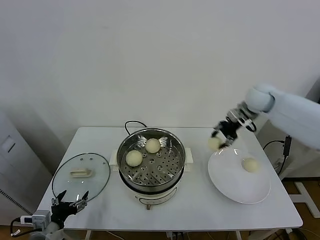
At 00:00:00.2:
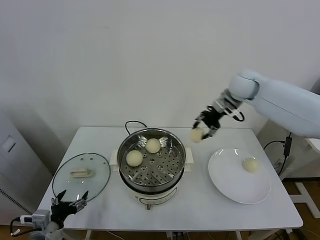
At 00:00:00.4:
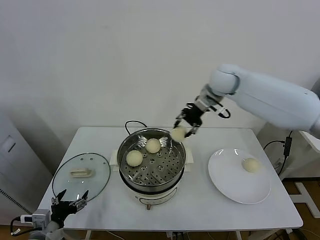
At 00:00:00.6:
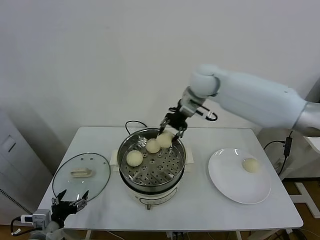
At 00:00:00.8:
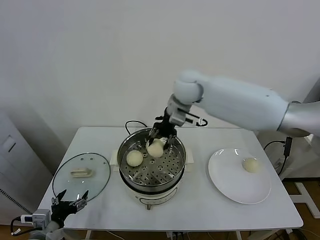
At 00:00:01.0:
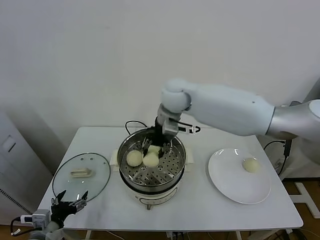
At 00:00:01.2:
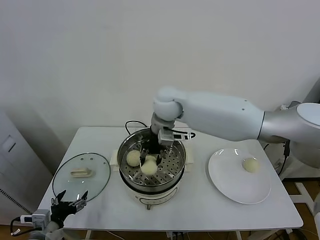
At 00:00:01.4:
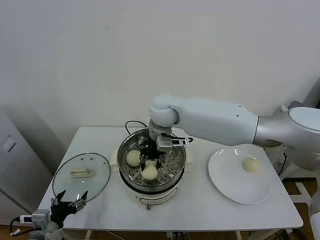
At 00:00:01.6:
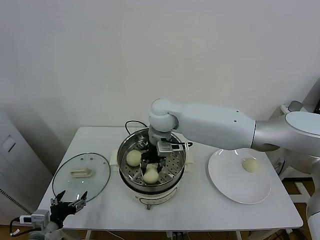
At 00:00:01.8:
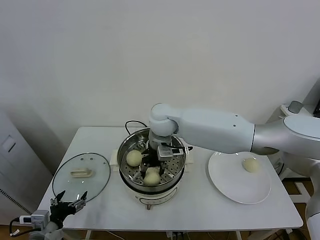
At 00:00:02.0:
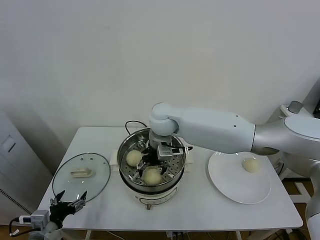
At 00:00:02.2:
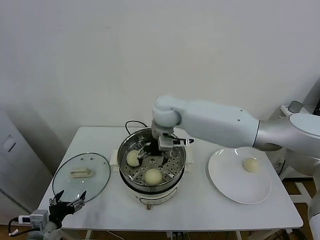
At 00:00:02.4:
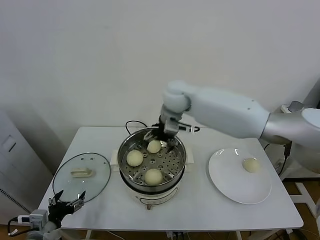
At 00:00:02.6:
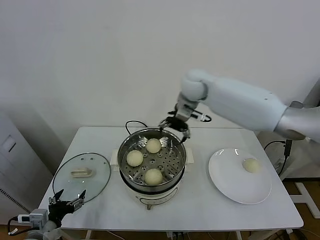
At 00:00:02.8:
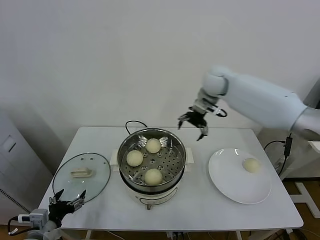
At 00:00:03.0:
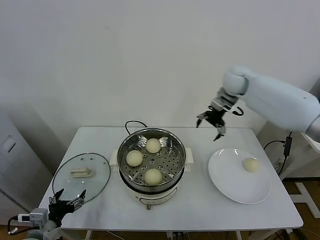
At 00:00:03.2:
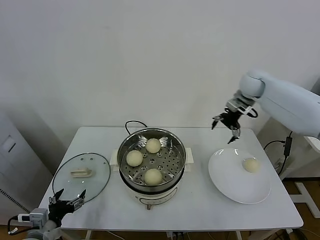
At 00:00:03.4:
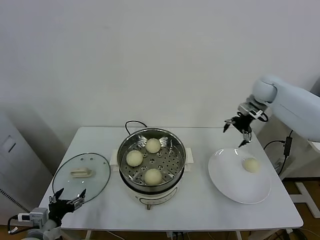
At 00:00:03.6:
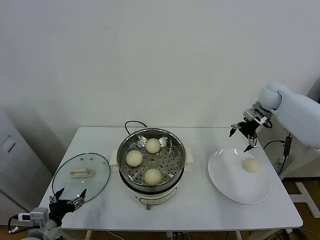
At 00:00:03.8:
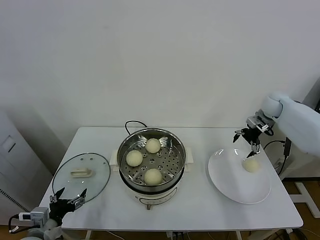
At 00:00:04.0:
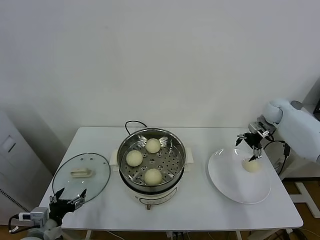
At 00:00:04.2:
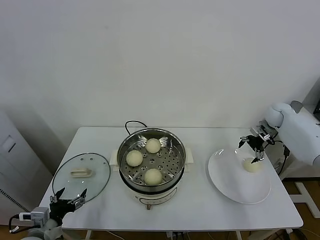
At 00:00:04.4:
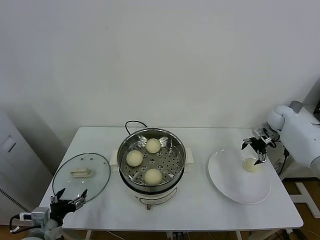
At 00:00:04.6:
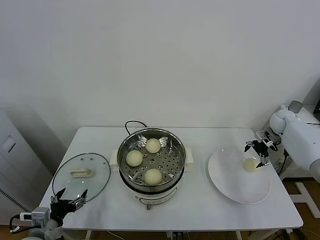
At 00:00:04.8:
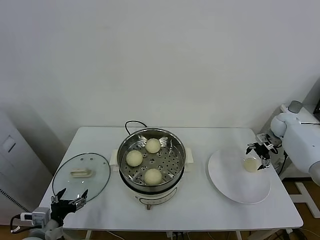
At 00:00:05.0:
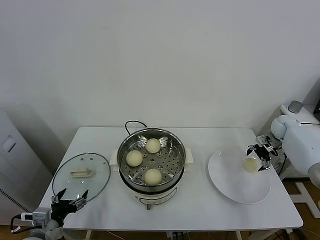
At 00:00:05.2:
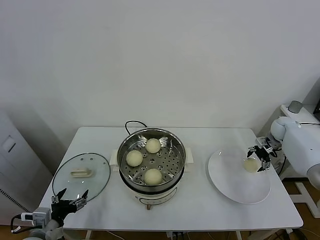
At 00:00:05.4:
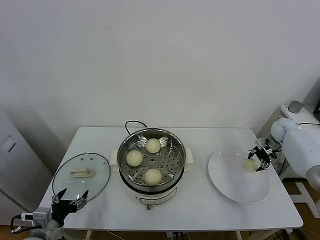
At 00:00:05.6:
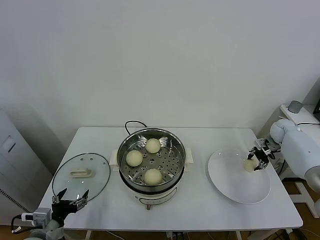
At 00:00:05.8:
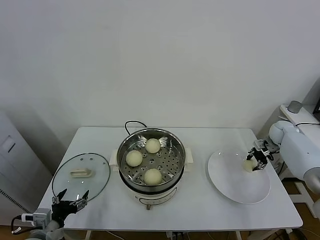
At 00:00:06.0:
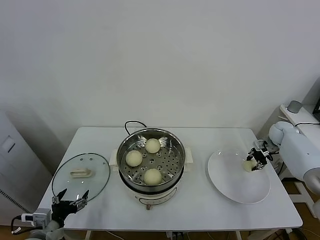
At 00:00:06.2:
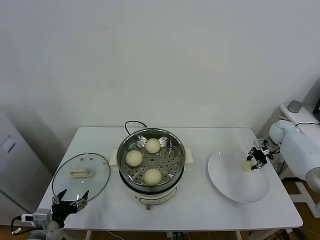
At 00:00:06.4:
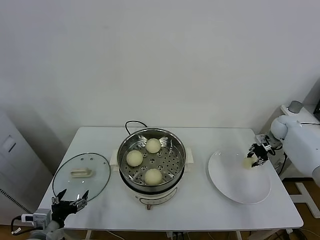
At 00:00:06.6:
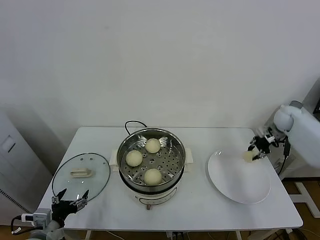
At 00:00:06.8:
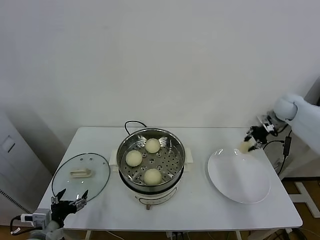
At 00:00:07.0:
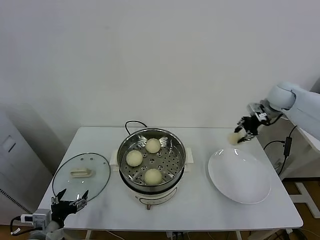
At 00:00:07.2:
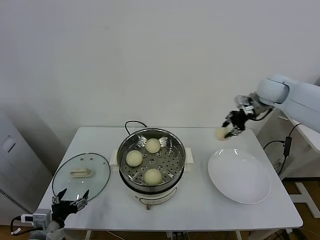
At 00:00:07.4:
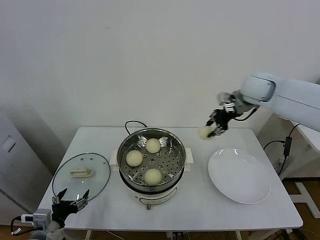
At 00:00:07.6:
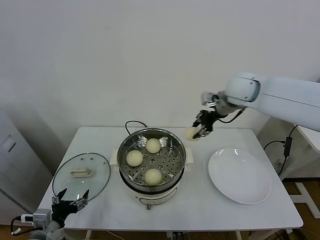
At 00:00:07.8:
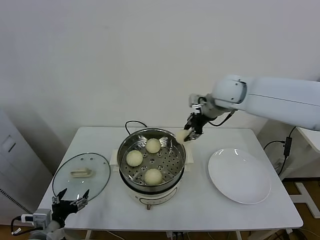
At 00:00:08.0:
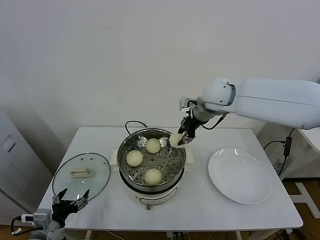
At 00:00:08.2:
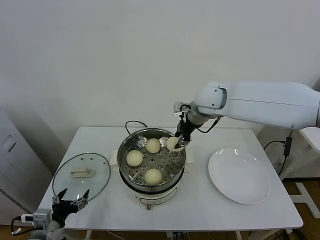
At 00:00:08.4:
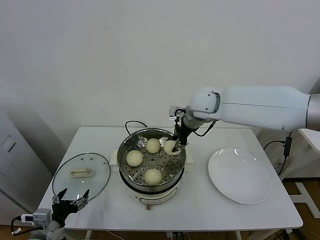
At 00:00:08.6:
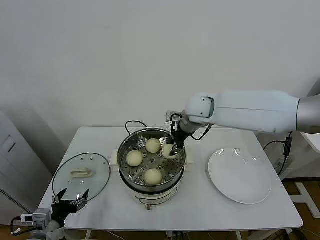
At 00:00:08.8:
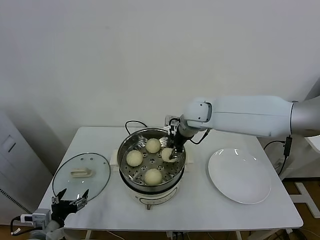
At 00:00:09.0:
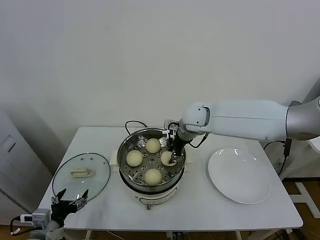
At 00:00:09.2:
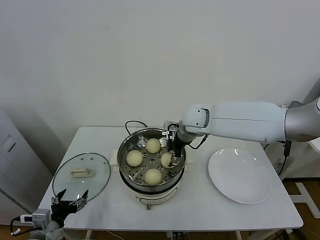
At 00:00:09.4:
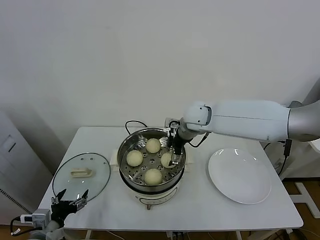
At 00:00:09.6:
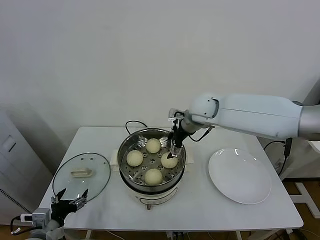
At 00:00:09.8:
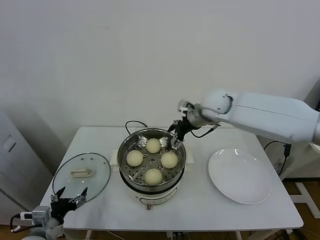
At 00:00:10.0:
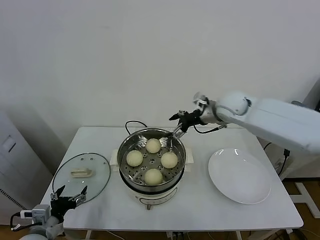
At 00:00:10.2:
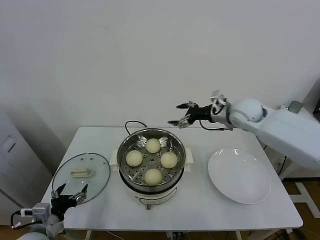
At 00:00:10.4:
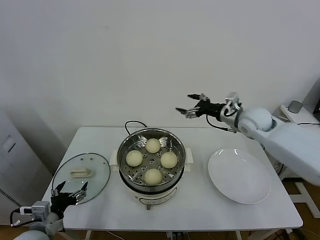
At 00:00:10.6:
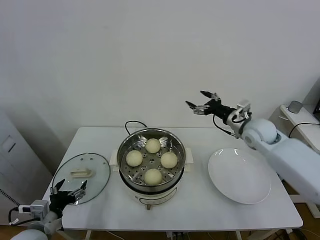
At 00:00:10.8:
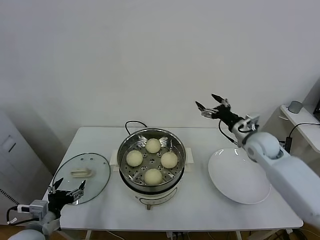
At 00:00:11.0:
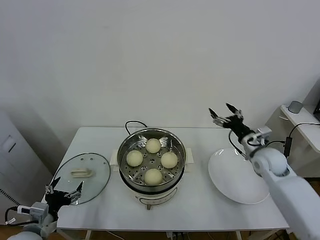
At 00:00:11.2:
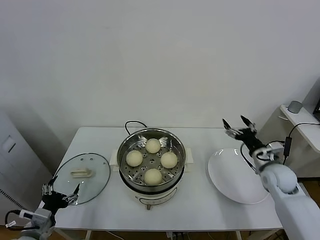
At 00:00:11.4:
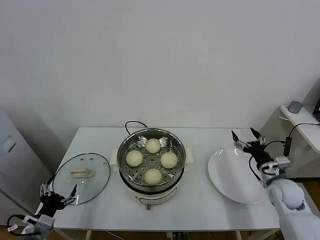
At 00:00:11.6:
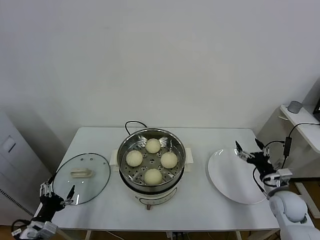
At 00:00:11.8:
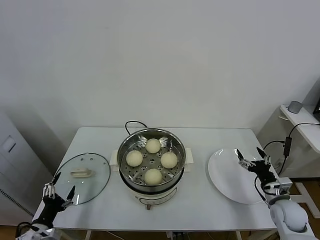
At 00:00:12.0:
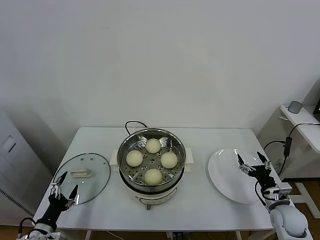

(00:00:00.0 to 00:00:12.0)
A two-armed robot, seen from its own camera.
Task of the whole recording: take steamed baozi put them in steamer.
Step, 00:00:00.0 - 00:00:02.0: Place the baozi on the steamer with right gripper.
Step, 00:00:02.2 - 00:00:06.2: Grasp the baozi in the plate with right gripper.
Step, 00:00:06.4 - 00:00:09.4: Place the baozi on the steamer with right gripper.
00:00:00.0 - 00:00:01.6: The right gripper shifts approximately 30 cm to the left.
00:00:01.6 - 00:00:03.0: The right gripper travels to the right and forward by about 30 cm, and opens its fingers.
00:00:03.0 - 00:00:04.4: The right gripper heads to the right and downward, covering roughly 25 cm.
00:00:04.4 - 00:00:06.0: The right gripper heads downward, covering some 5 cm, and closes.
00:00:06.0 - 00:00:07.6: The right gripper shifts roughly 35 cm to the left and upward.
00:00:07.6 - 00:00:09.0: The right gripper travels to the left and downward by roughly 15 cm.
00:00:09.0 - 00:00:10.4: The right gripper moves to the right, about 20 cm, and opens up.
00:00:10.4 - 00:00:12.0: The right gripper shifts roughly 35 cm downward, backward and to the right, while the left gripper moves downward, approximately 5 cm.

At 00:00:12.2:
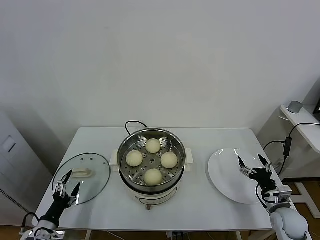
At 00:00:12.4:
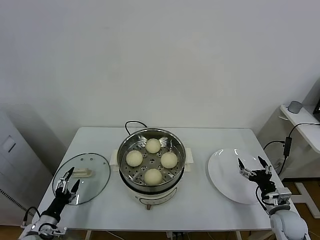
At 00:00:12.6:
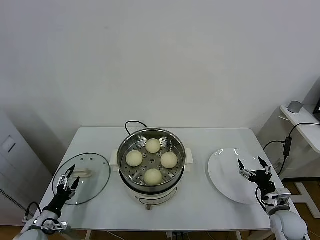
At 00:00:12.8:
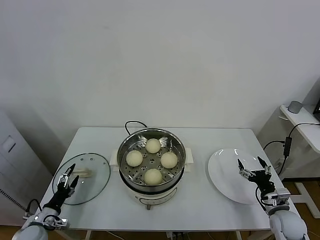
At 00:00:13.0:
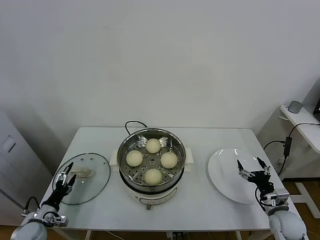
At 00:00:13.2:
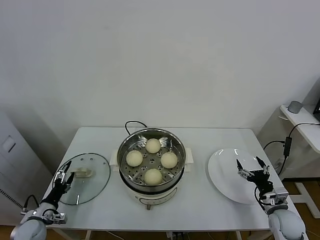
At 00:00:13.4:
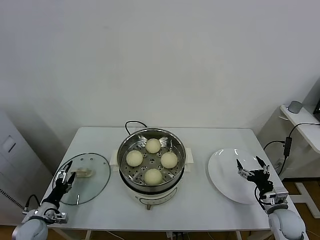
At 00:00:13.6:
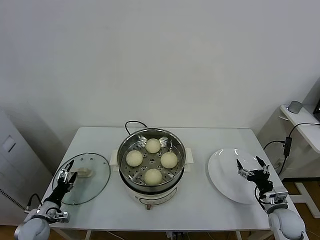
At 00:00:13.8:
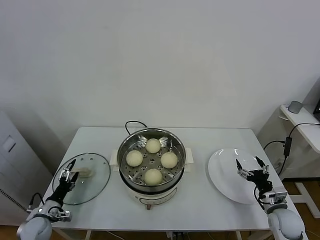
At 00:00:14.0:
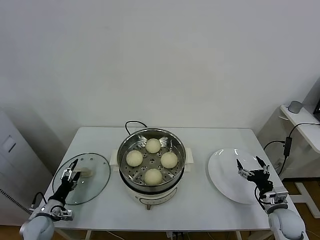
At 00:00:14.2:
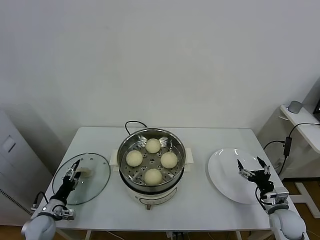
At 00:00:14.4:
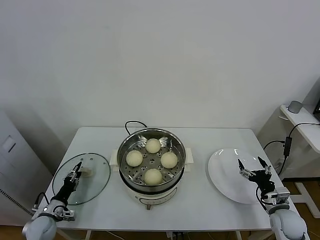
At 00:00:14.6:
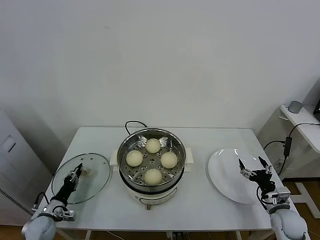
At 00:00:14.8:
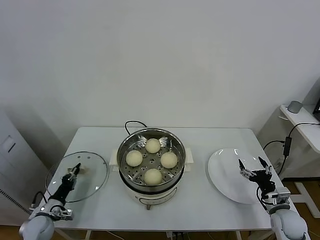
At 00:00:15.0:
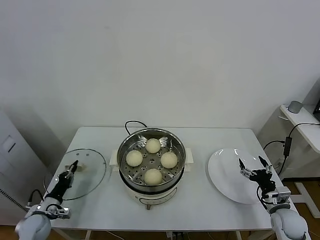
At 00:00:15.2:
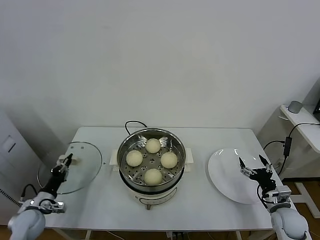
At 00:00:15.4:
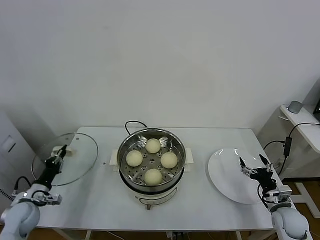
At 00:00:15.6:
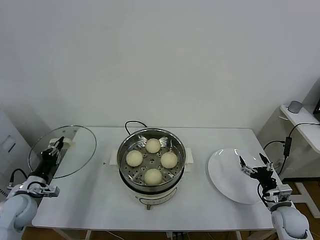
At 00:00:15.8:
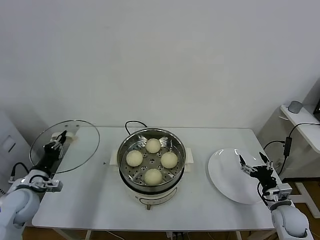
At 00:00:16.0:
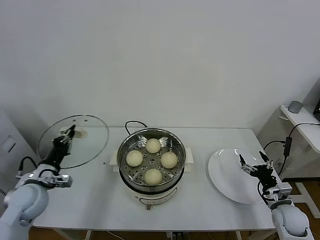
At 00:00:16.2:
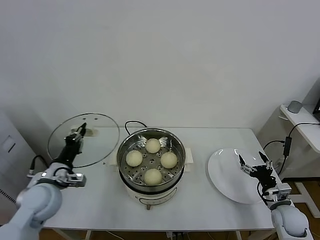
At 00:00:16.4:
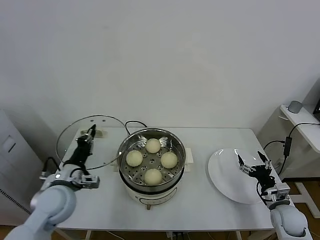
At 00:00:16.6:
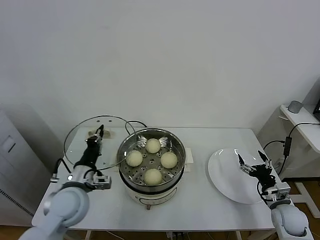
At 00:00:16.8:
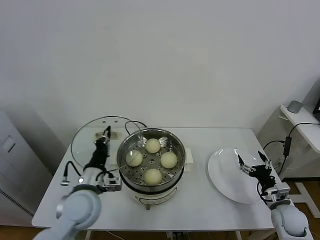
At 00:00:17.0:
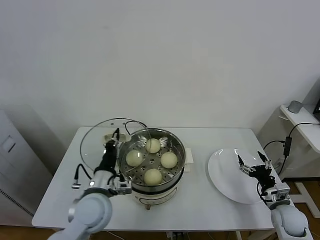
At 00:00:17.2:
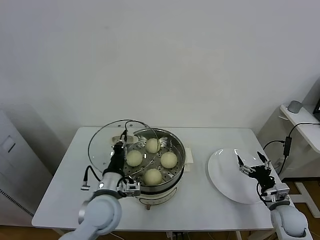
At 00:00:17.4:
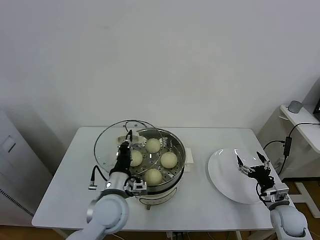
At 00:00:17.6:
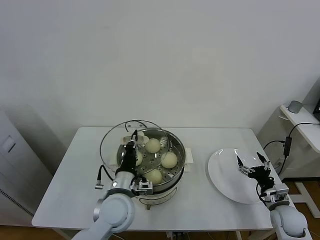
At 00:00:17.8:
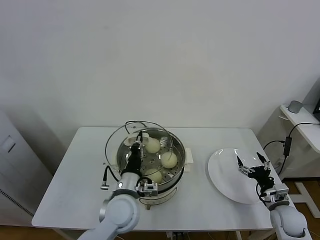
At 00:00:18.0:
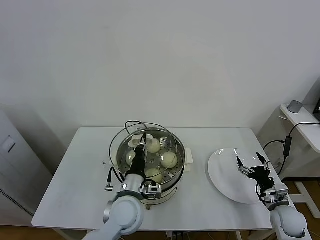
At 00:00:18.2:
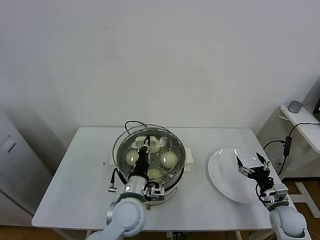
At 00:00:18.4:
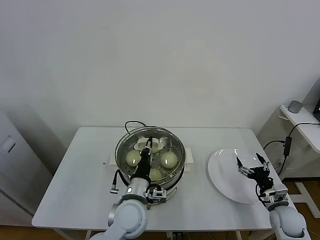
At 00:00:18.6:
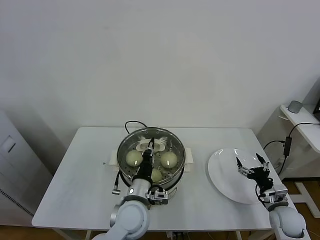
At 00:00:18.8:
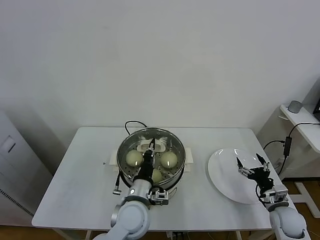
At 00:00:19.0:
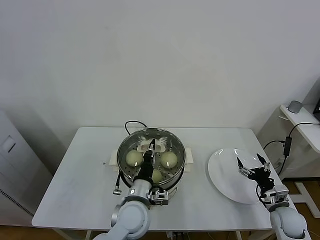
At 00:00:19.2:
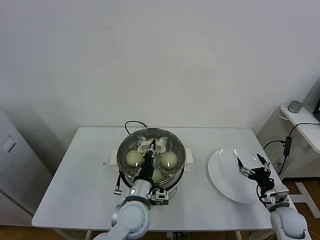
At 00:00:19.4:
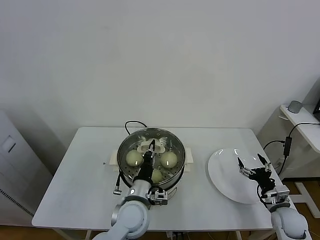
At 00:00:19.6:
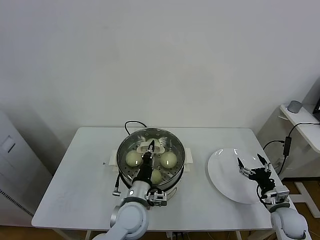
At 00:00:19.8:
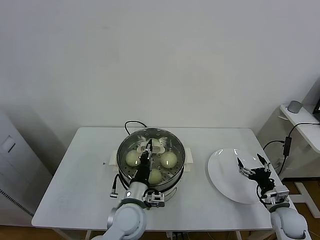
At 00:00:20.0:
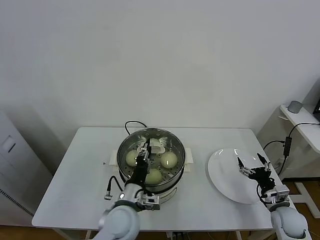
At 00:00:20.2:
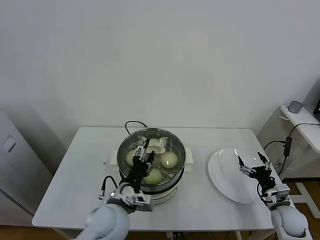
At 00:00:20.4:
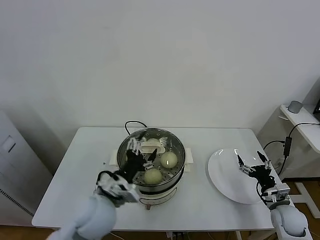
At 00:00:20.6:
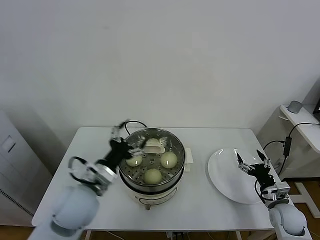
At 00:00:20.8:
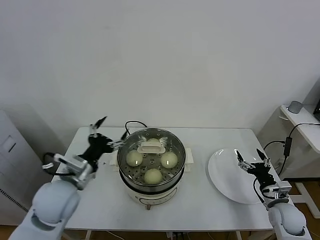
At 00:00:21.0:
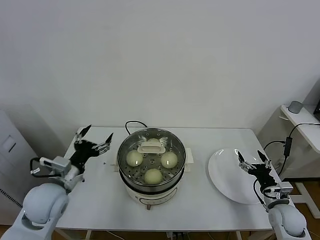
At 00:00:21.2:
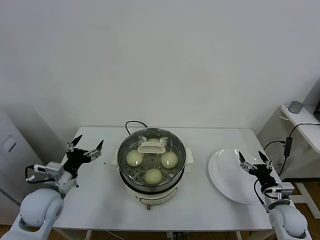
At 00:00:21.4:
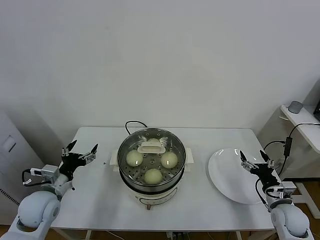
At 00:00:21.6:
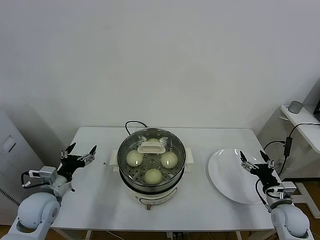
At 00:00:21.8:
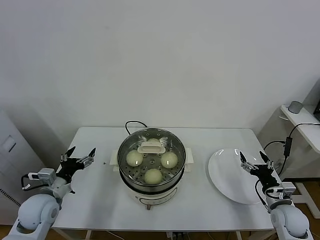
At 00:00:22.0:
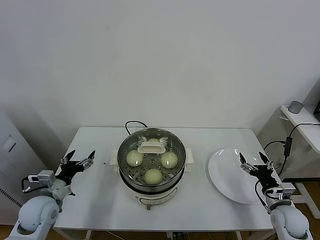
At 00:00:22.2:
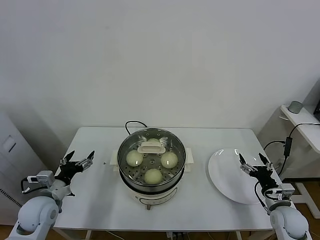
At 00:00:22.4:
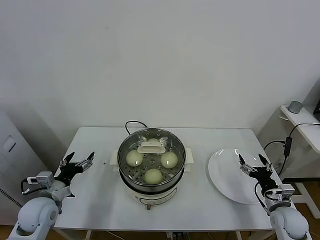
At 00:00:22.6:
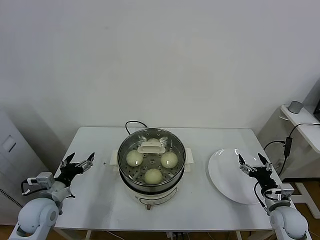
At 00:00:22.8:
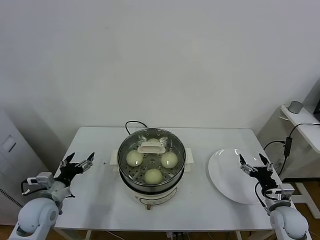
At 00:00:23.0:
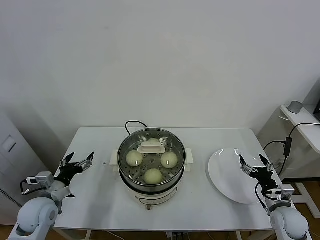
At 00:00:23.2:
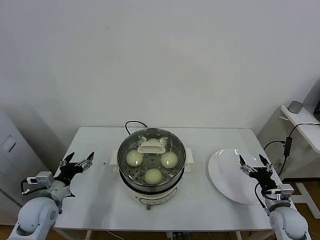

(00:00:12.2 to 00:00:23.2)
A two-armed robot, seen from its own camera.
Task of the whole recording: take steamed baozi put them in steamer.
Step, 00:00:12.2 - 00:00:14.8: Grasp the pot lid with left gripper.
Step, 00:00:15.0 - 00:00:20.2: Place the pot lid on the steamer with left gripper.
00:00:12.2 - 00:00:13.8: The left gripper goes roughly 10 cm forward.
00:00:13.8 - 00:00:15.4: The left gripper is displaced upward by about 10 cm, and closes.
00:00:15.4 - 00:00:17.0: The left gripper is displaced to the right and upward by some 30 cm.
00:00:17.0 - 00:00:18.4: The left gripper moves to the right, approximately 10 cm.
00:00:18.4 - 00:00:20.0: The left gripper opens up.
00:00:20.0 - 00:00:21.6: The left gripper moves to the left, roughly 25 cm, and opens.
00:00:21.6 - 00:00:23.2: The grippers make only small movements.
